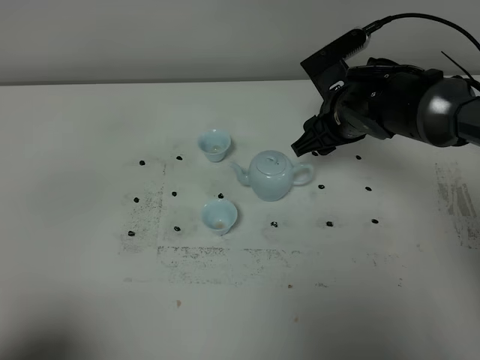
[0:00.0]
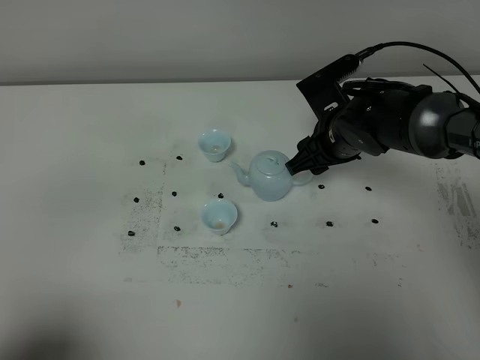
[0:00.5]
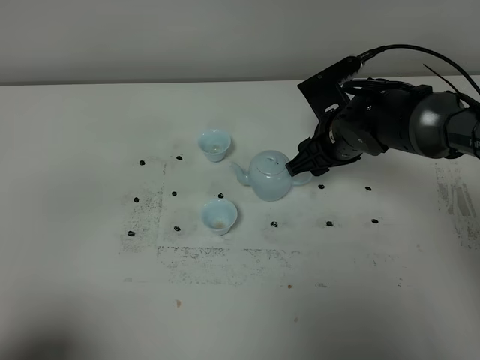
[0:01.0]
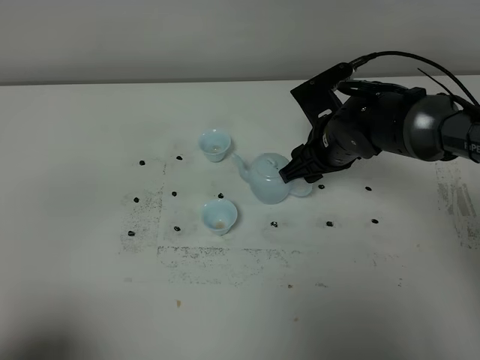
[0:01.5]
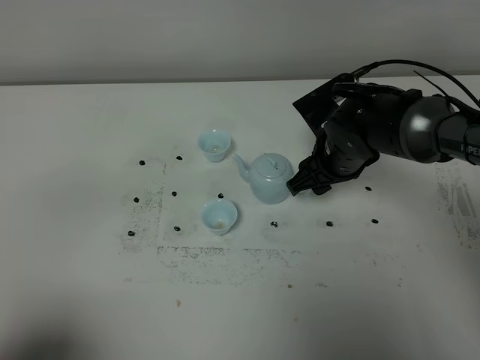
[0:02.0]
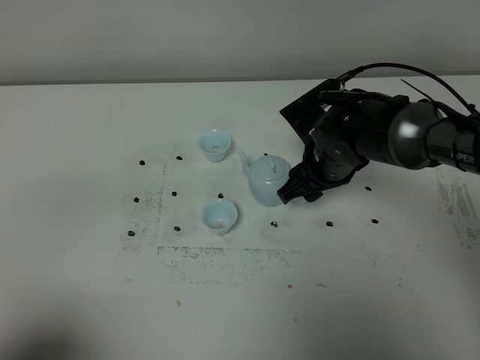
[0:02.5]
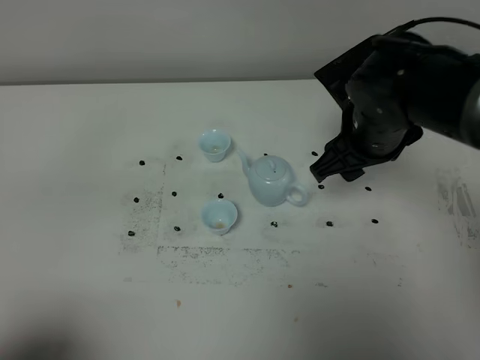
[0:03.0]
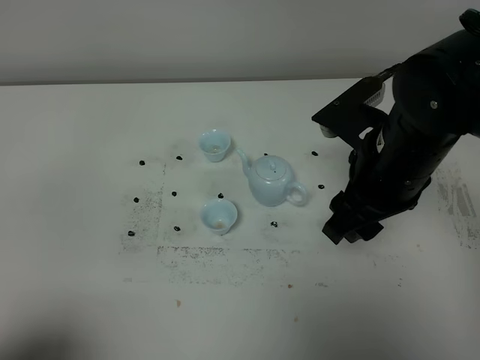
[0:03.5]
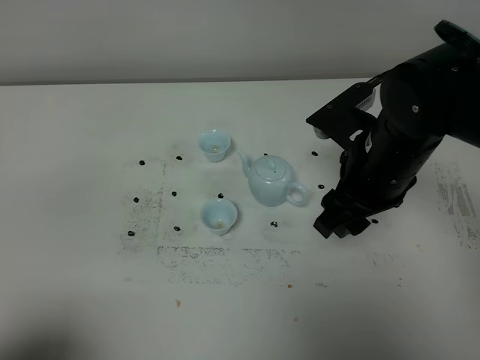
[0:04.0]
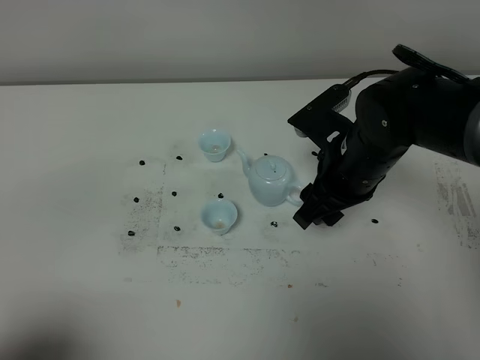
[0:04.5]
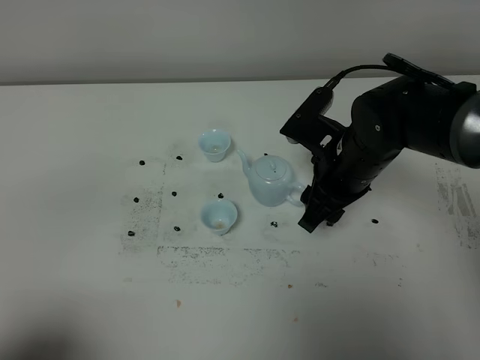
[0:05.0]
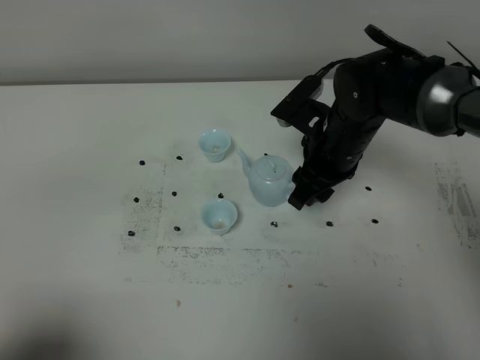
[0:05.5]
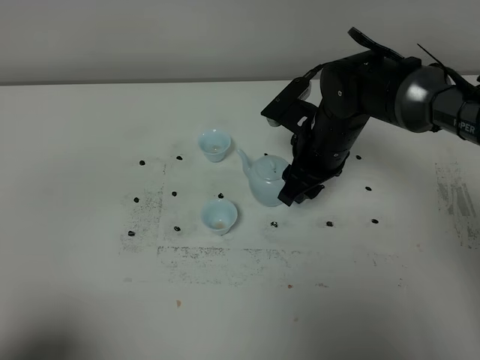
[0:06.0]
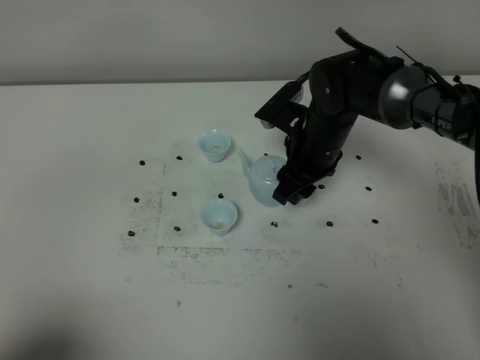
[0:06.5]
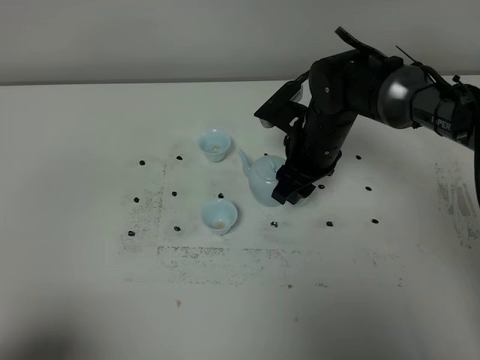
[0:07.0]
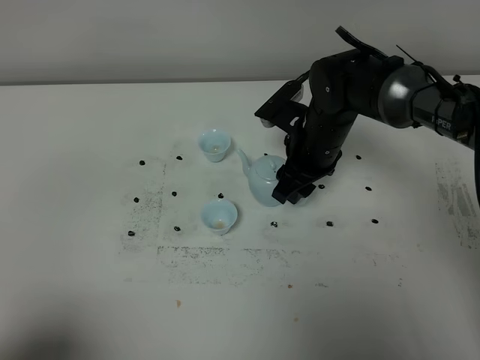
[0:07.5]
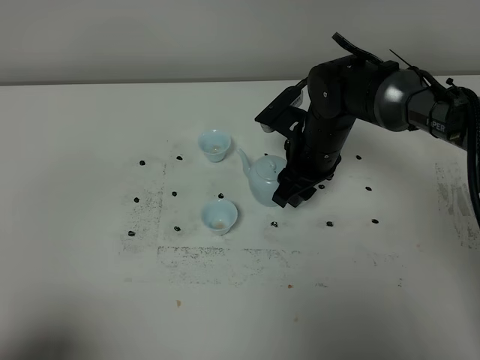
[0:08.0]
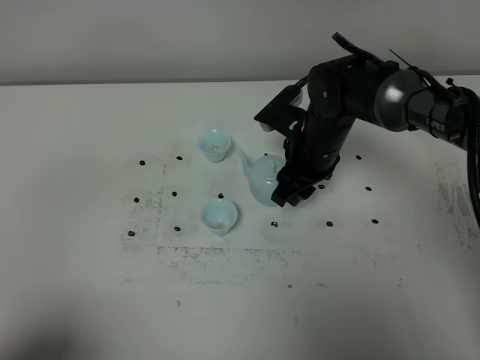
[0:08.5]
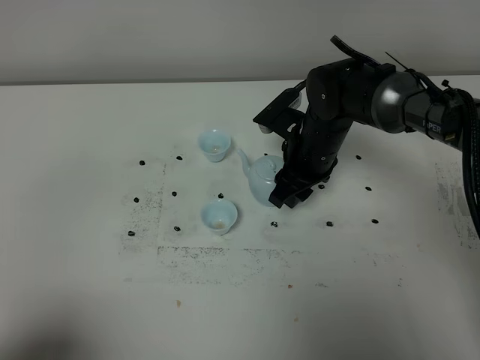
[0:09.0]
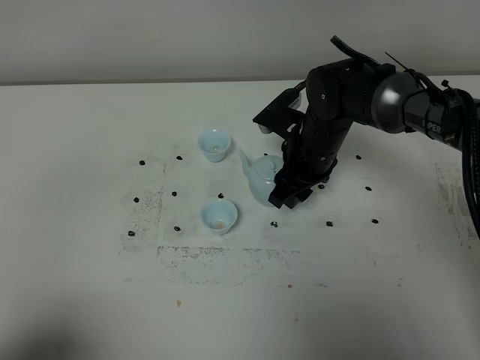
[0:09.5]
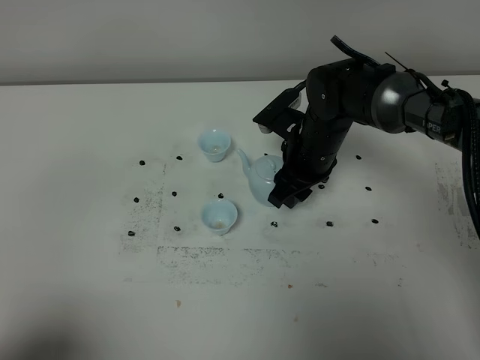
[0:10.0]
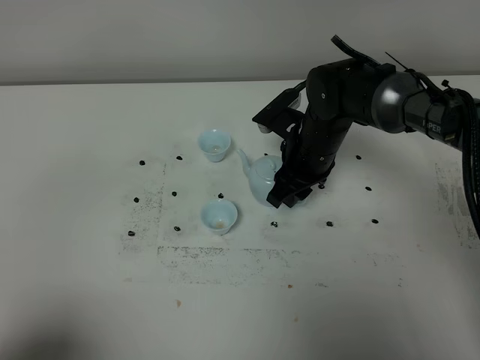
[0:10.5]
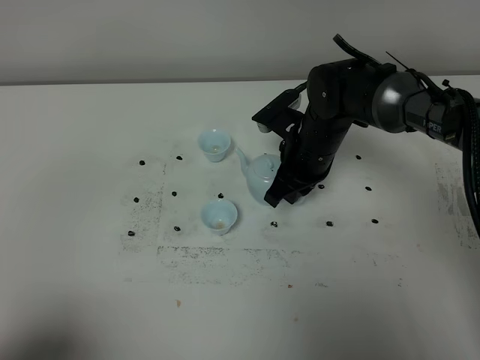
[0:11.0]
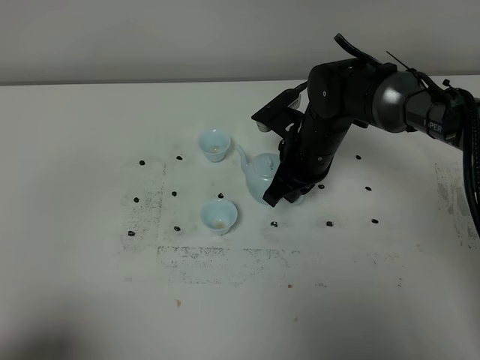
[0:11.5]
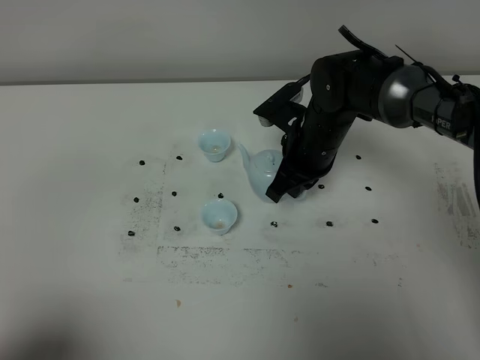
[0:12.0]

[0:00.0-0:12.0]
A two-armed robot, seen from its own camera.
Task of the whole recording: grasp the blue porcelain teapot and pour the tea into the two blue porcelain teacups one by one, put the blue porcelain teapot back in its original place.
0:00.0 to 0:02.0: There are only small adjustments of the grippers.
0:02.0 to 0:04.0: The right gripper travels backward and upward by roughly 15 cm.
0:04.0 to 0:06.0: The right gripper is displaced forward and downward by roughly 10 cm.
0:06.0 to 0:08.0: The grippers move only a little.
0:08.0 to 0:10.0: Both grippers stay put.
0:10.0 to 0:12.0: The right gripper closes its fingers.

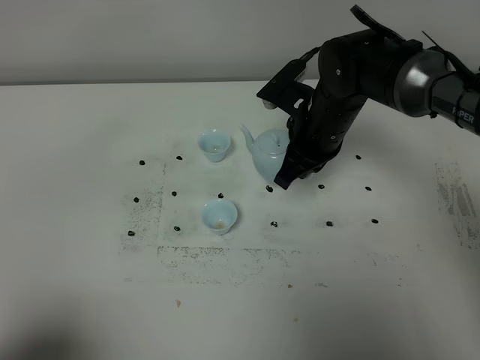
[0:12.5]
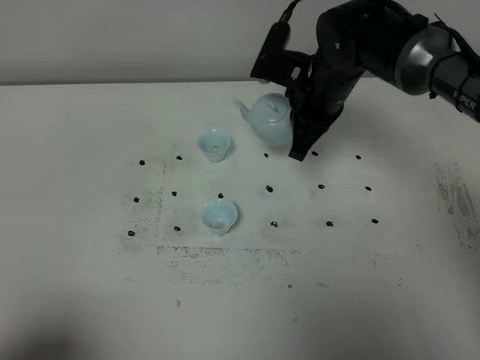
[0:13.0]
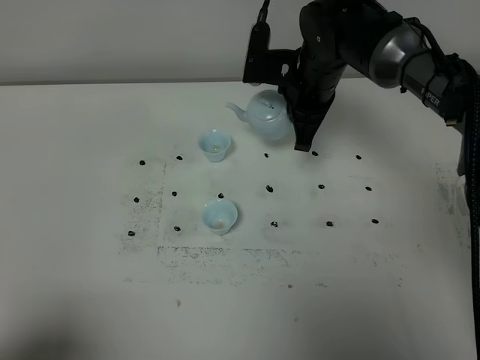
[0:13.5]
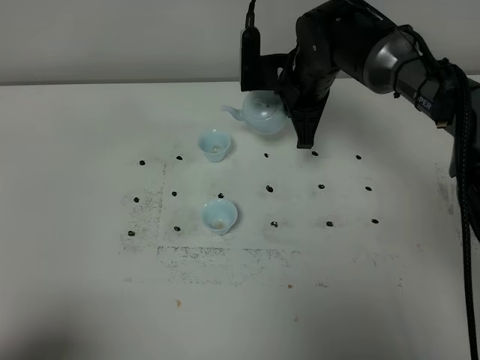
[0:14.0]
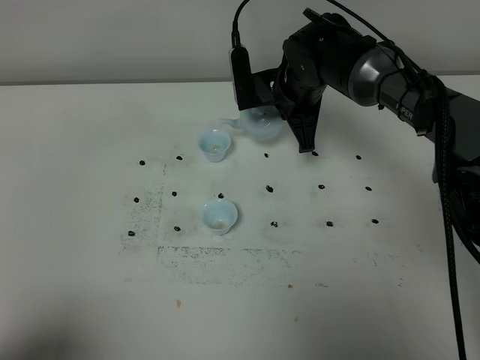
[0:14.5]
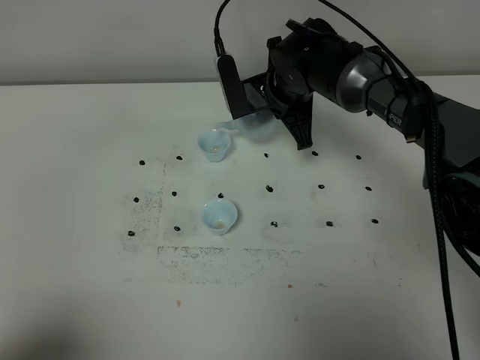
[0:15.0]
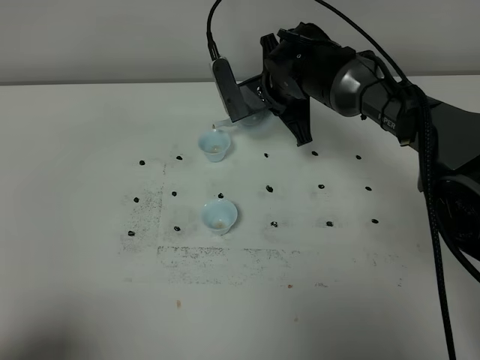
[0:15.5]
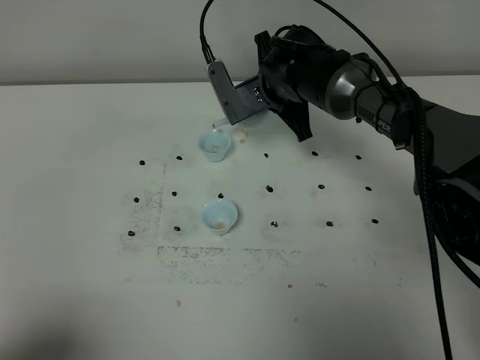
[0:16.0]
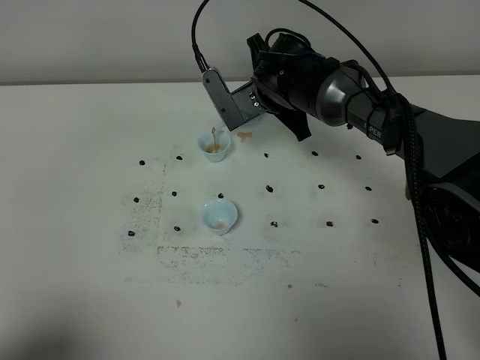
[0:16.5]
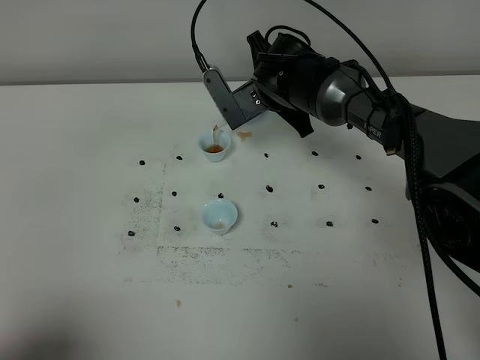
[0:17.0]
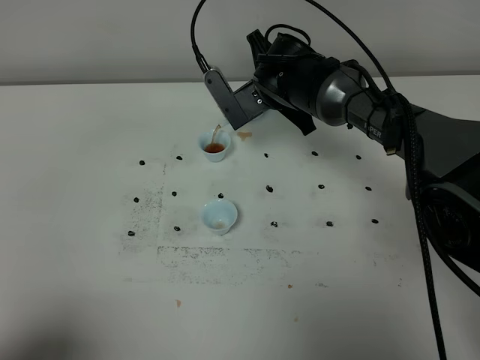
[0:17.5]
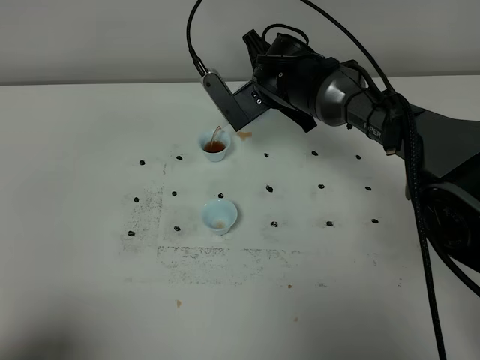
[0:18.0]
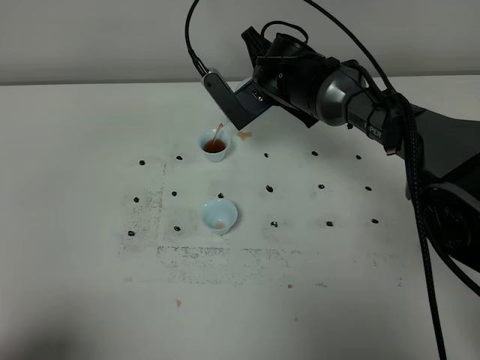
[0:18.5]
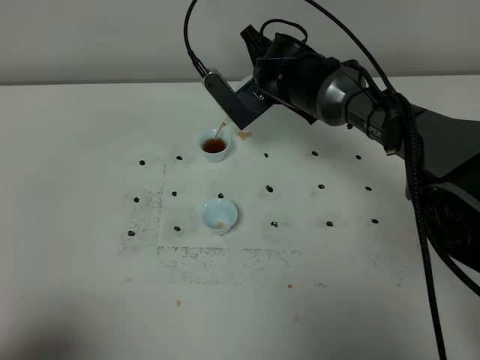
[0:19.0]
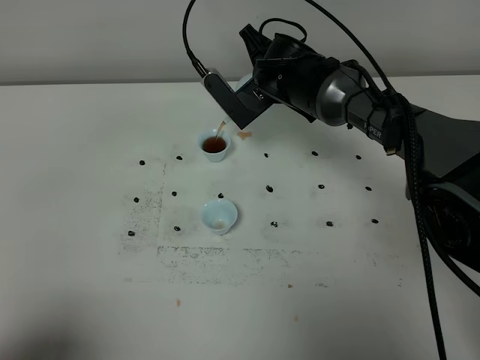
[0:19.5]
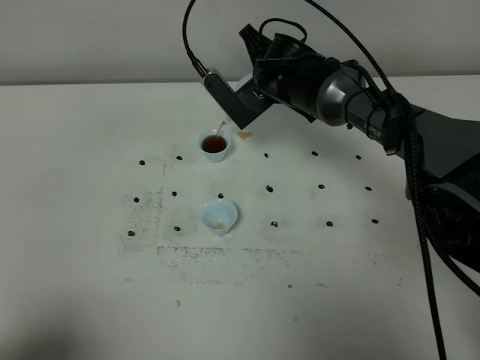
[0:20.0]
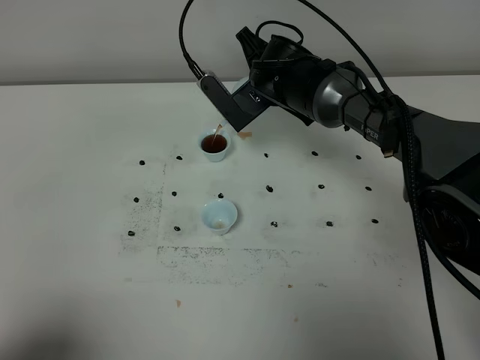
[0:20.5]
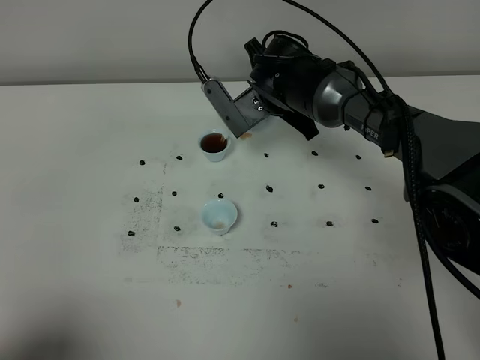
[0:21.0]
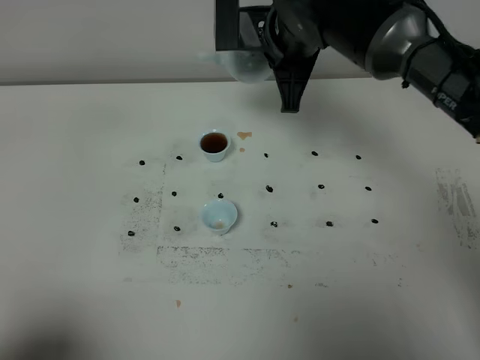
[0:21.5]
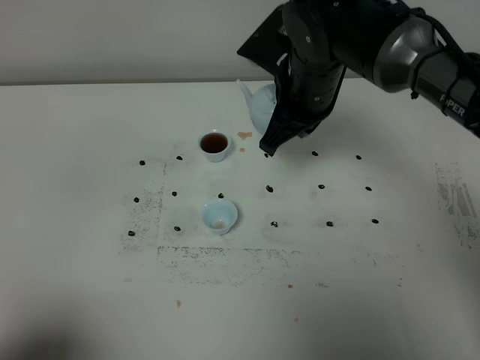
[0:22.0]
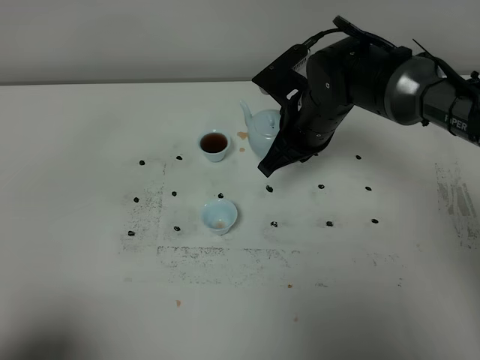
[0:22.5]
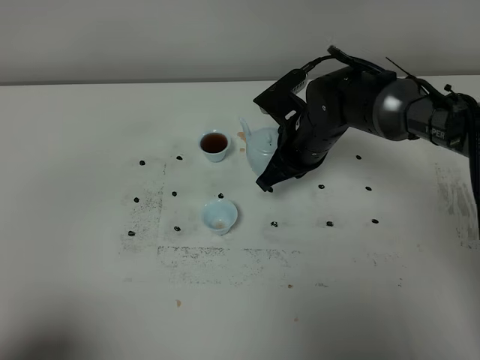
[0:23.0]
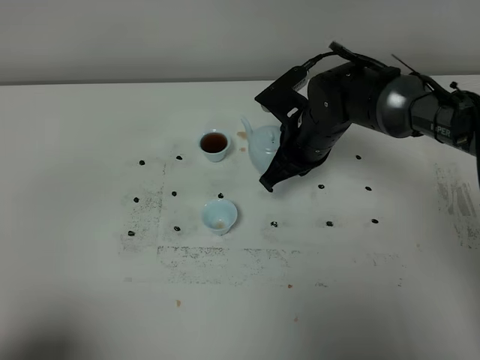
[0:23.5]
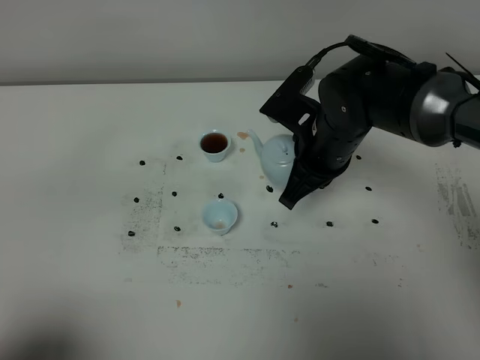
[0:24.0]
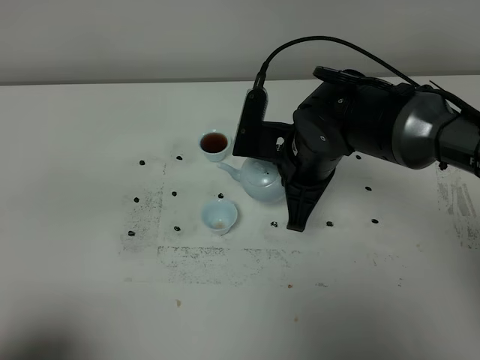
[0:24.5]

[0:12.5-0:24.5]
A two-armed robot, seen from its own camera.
Task of the whole recording: grasp the blue porcelain teapot and pour the tea into the two blue porcelain teacups one by one, put the blue porcelain teapot back in its original place.
0:12.5 to 0:14.5: The right gripper heads forward, covering about 5 cm.
0:16.5 to 0:18.5: The grippers make only small movements.
0:18.5 to 0:20.5: The two grippers keep their place.
0:20.5 to 0:22.5: The right gripper shifts some 5 cm backward, and travels upward and back again, some 10 cm each way.
0:22.5 to 0:24.5: The right gripper shifts about 5 cm backward.

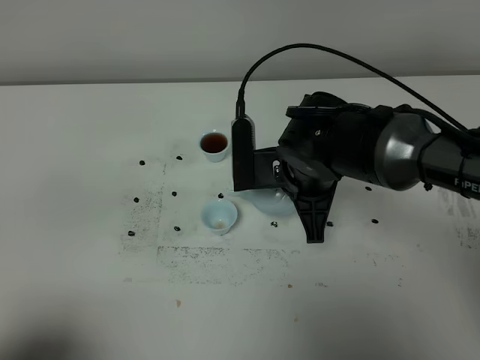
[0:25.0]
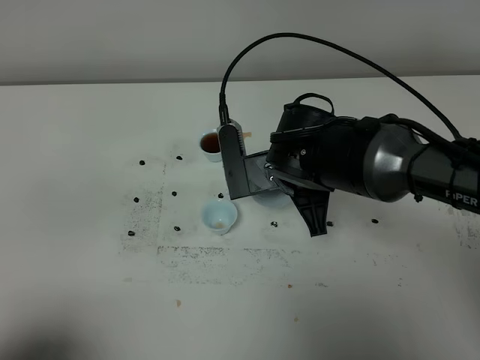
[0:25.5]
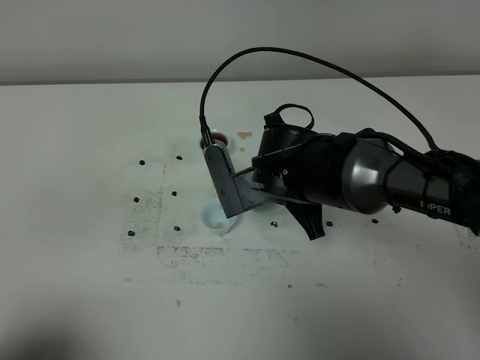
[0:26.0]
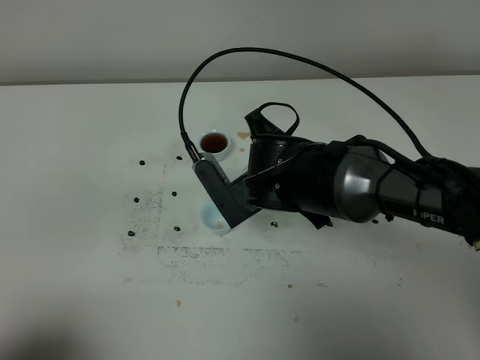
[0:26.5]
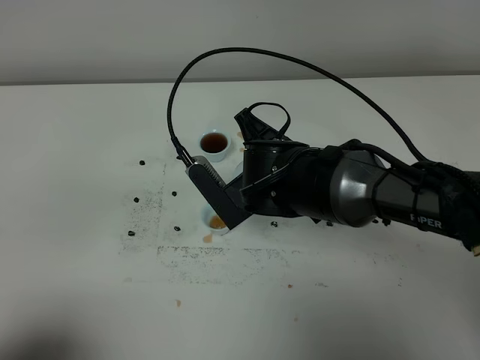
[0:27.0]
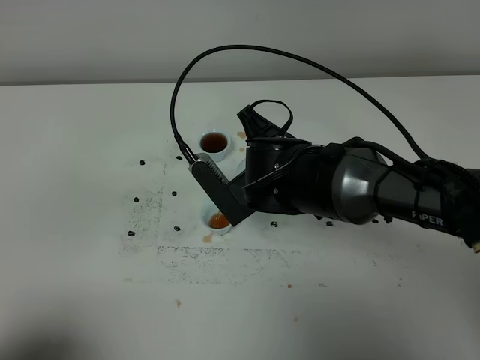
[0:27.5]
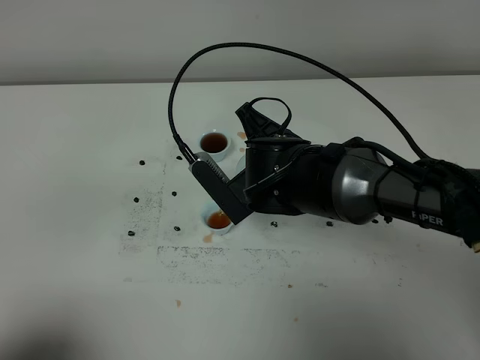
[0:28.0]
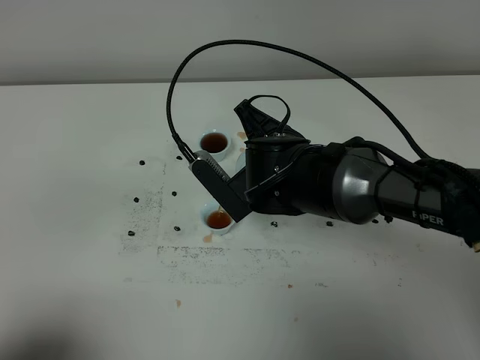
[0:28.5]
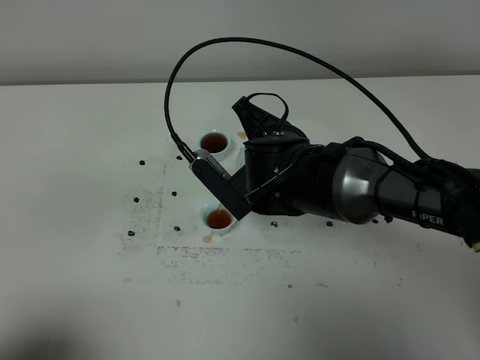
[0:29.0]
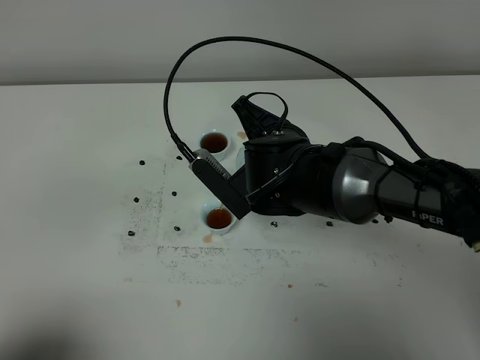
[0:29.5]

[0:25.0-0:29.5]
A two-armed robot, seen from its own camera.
Task of the whole recording: grasp the blue porcelain teapot and pour the tea into the two blue porcelain teacups one by one, put the blue porcelain teapot back in its original place.
0:27.0 to 0:29.5: The grippers stay close to where they were, moving slightly.
